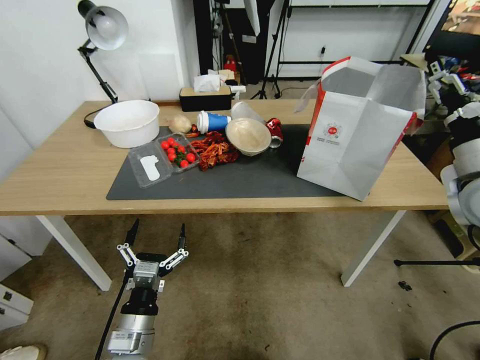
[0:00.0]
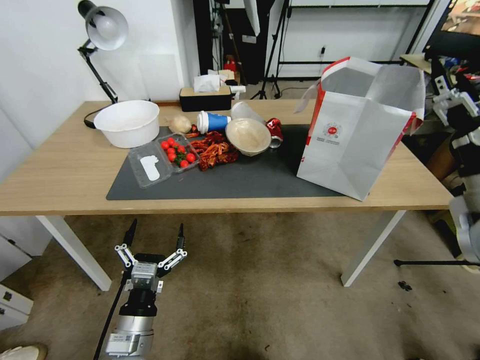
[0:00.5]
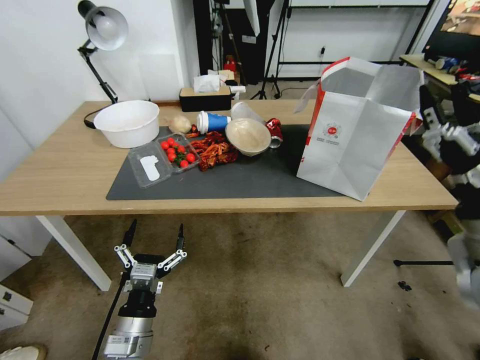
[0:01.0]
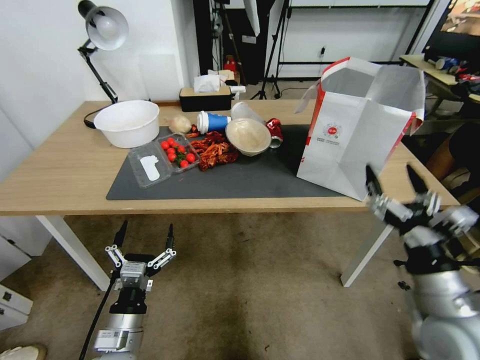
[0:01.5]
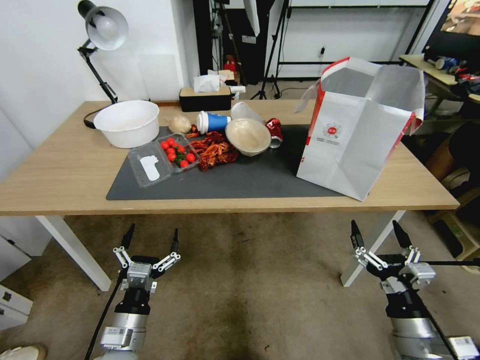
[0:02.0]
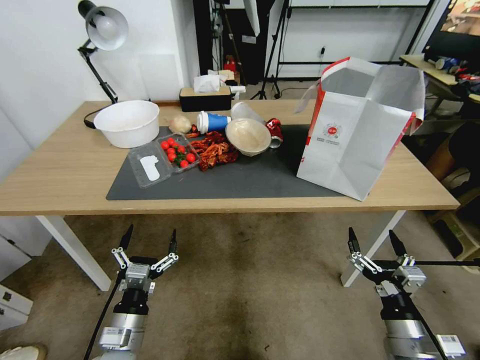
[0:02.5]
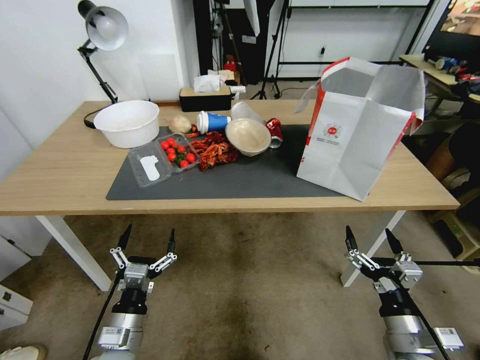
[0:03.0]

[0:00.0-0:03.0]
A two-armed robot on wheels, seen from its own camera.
Task of the whole recording: Pick up the food delivery bag from the floor and place it on the table.
0:00.0 to 0:01.5: The right gripper is displaced backward, downward and to the left by some 20 cm.
0:01.5 to 0:03.0: The right gripper heads downward, covering about 15 cm.

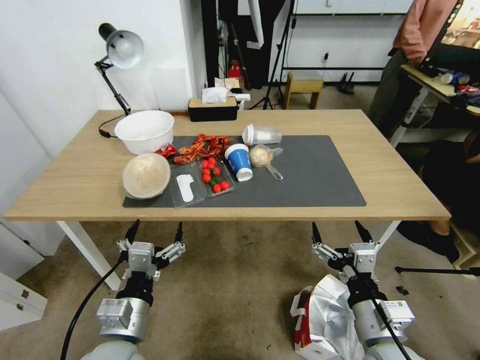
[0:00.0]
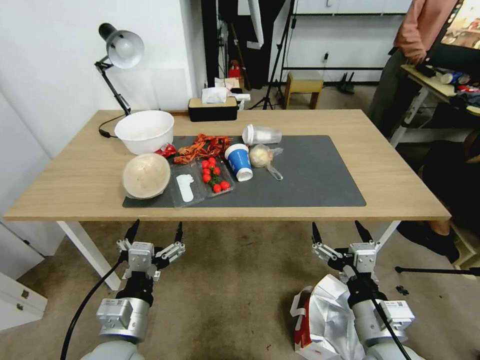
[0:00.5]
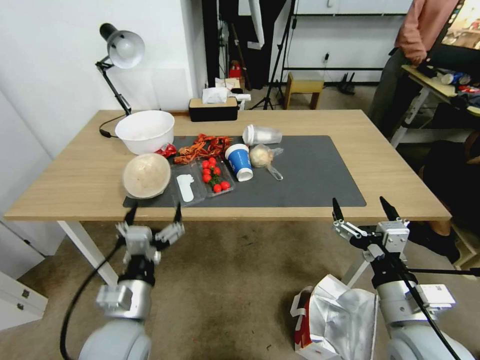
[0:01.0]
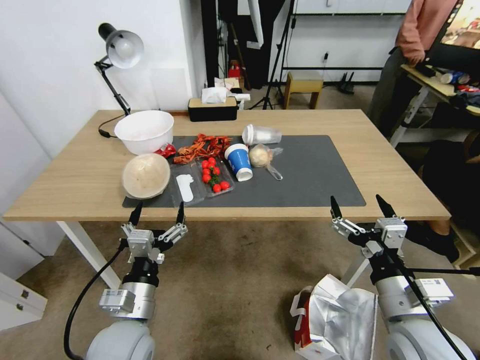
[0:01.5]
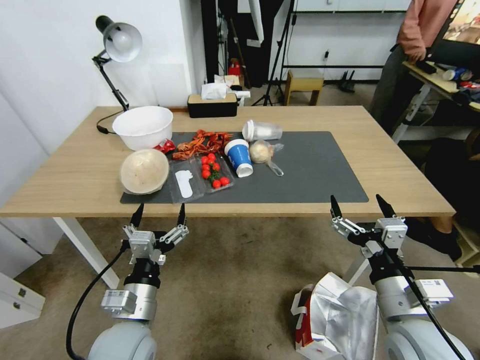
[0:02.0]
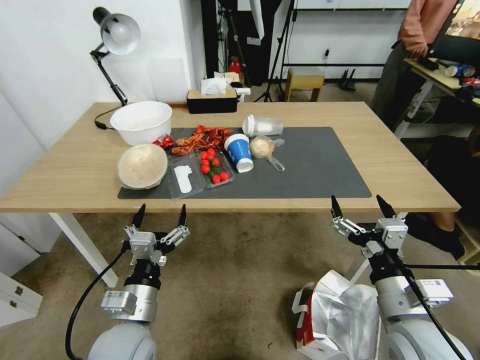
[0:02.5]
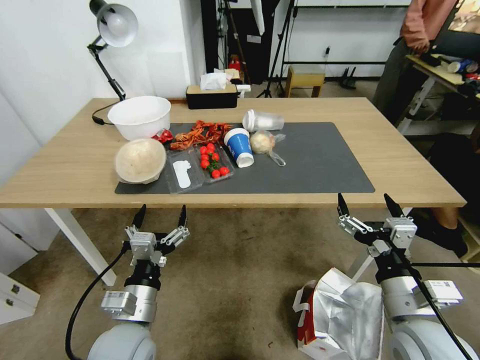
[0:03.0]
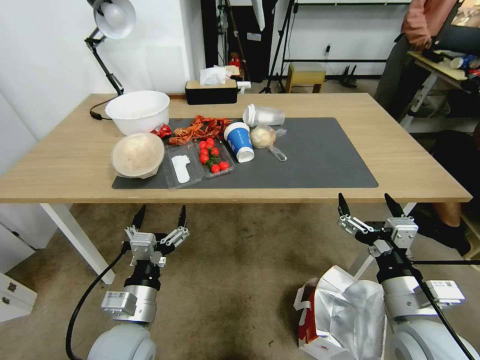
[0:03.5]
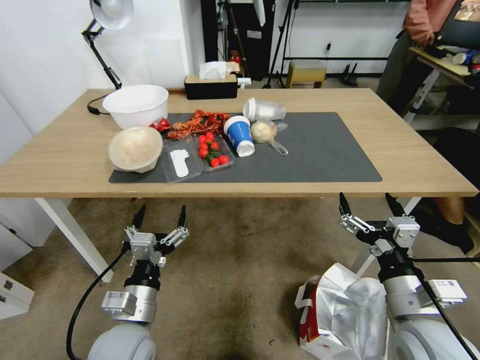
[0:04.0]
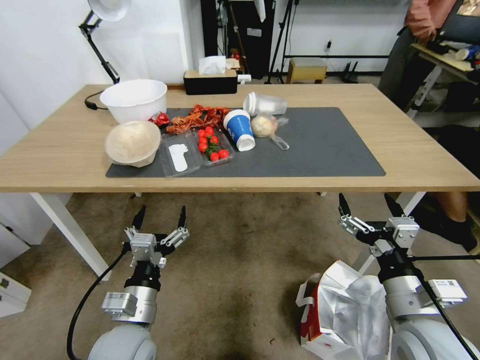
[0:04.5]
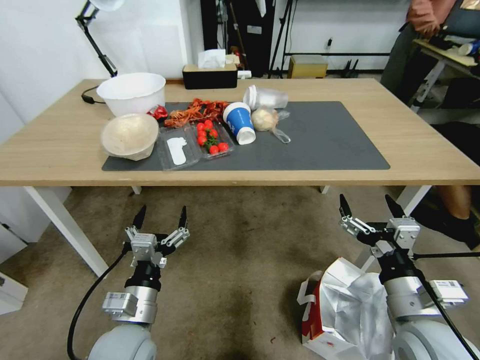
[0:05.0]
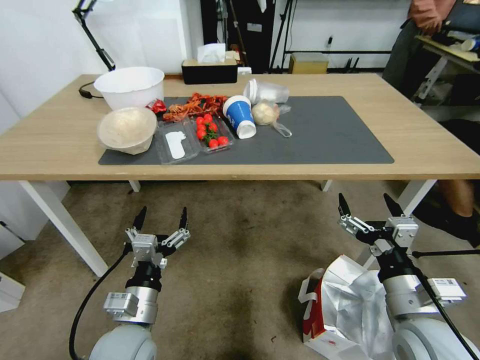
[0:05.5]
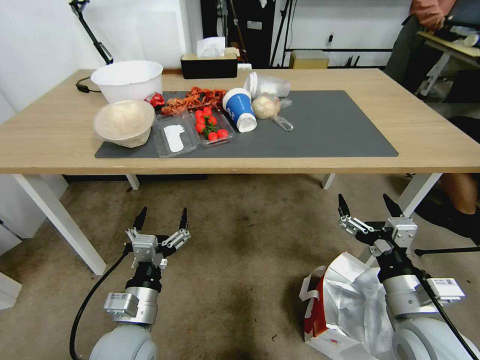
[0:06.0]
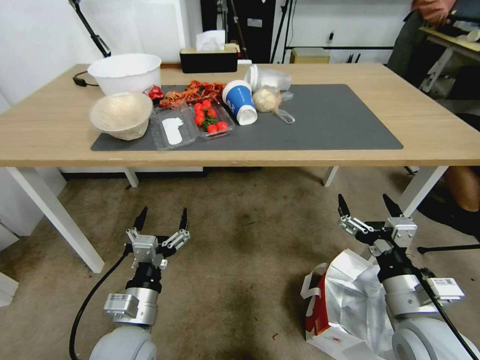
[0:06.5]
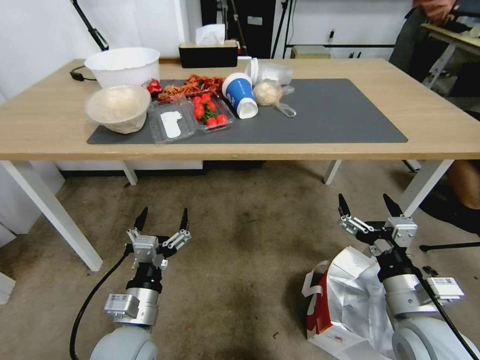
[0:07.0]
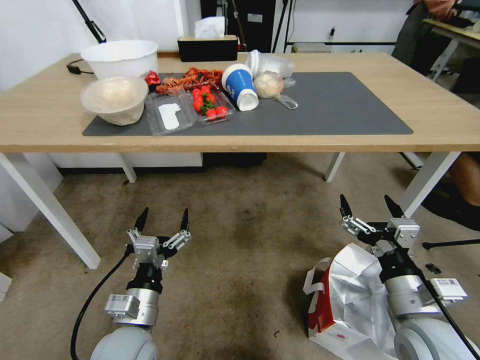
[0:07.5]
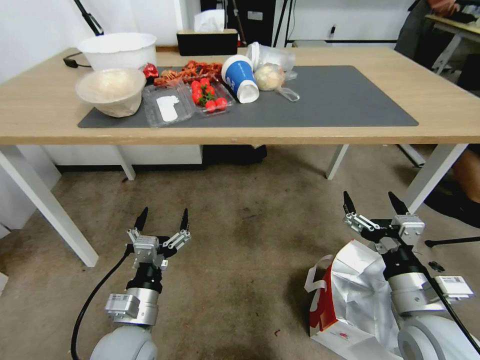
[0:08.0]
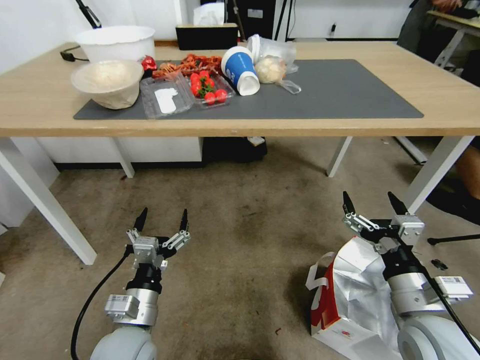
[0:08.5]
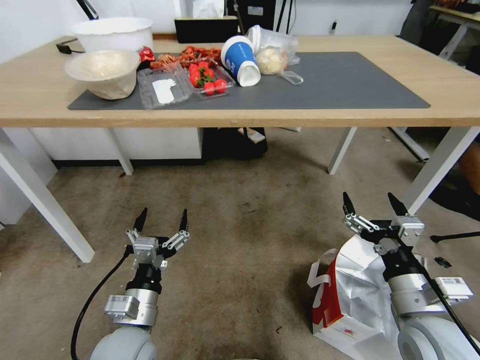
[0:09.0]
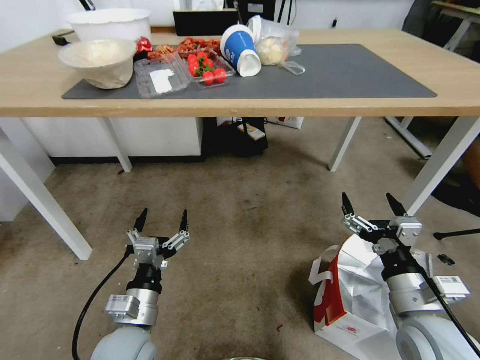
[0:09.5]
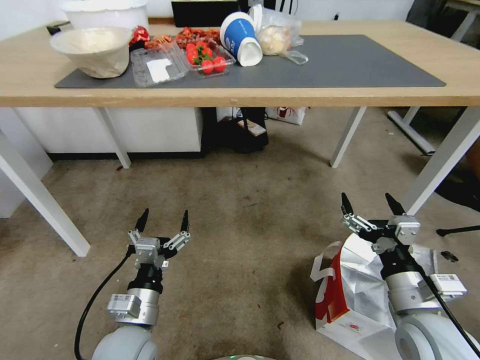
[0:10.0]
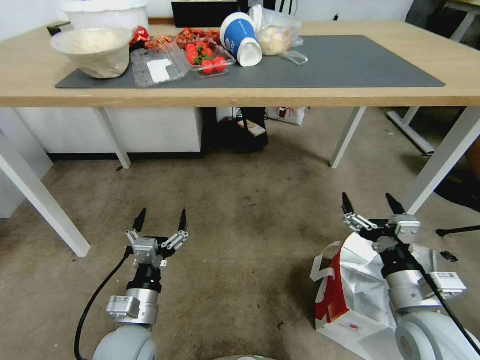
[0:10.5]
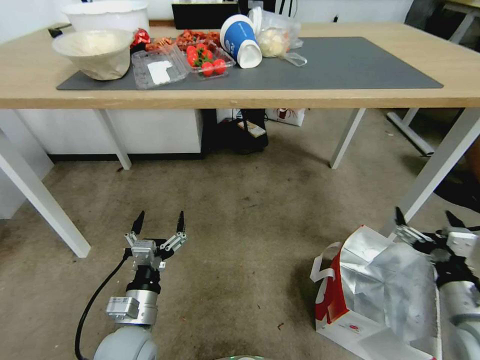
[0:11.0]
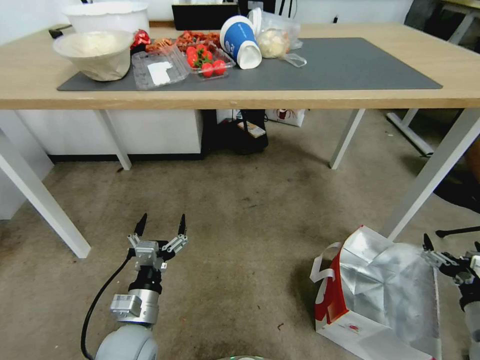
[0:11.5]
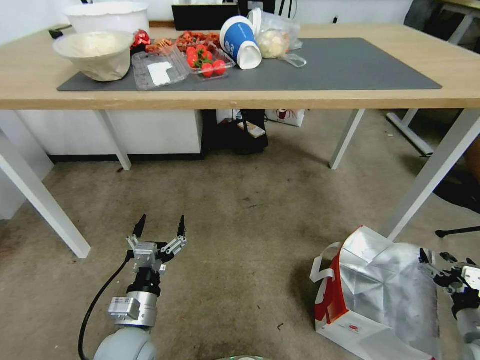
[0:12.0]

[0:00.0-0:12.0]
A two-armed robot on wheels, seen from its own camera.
Task of the whole recording: Pick up the food delivery bag from the floor and place it on the table.
0:10.0 to 0:12.0: The right gripper is displaced to the right and downward by approximately 20 cm.

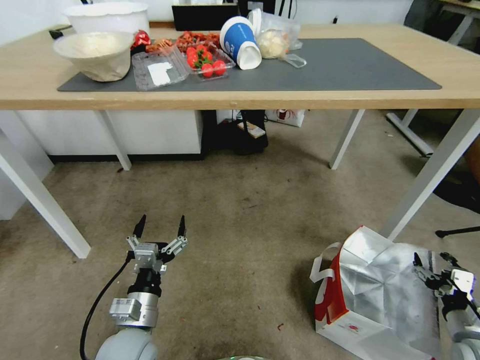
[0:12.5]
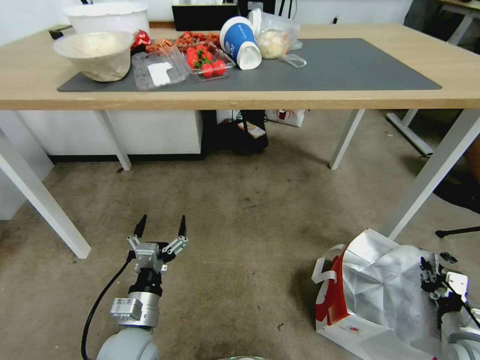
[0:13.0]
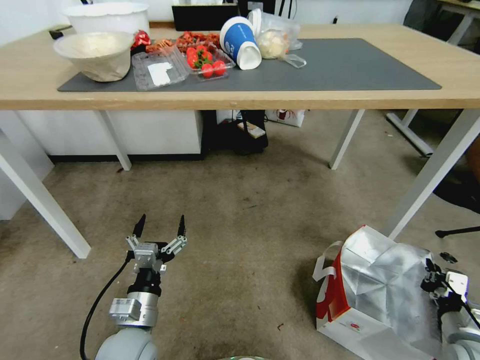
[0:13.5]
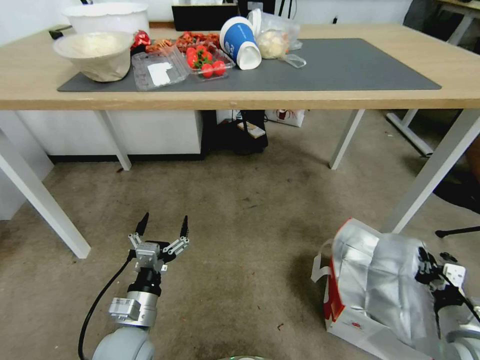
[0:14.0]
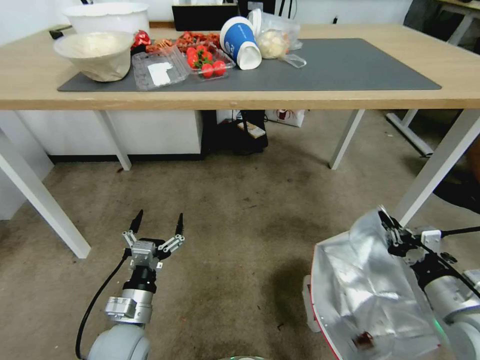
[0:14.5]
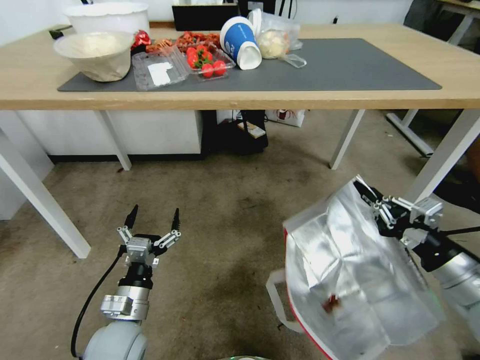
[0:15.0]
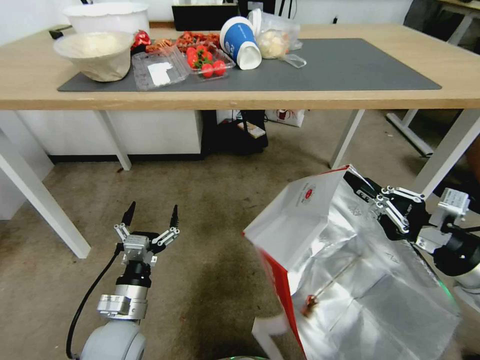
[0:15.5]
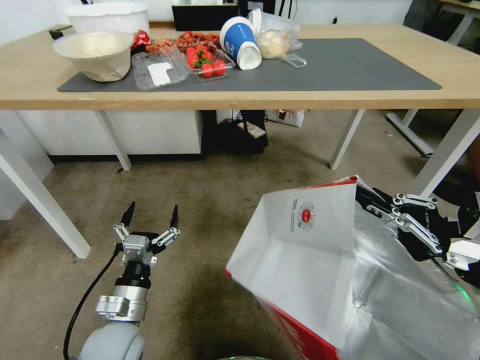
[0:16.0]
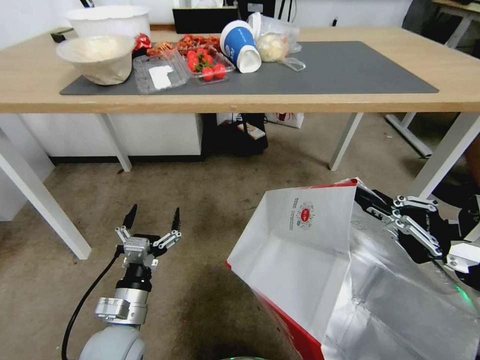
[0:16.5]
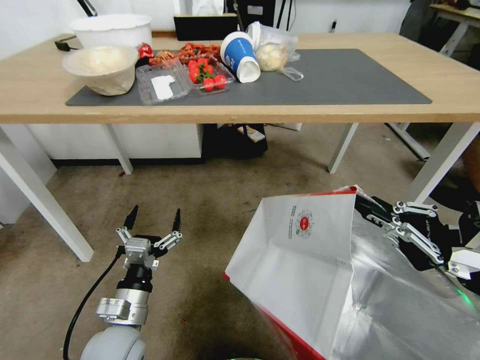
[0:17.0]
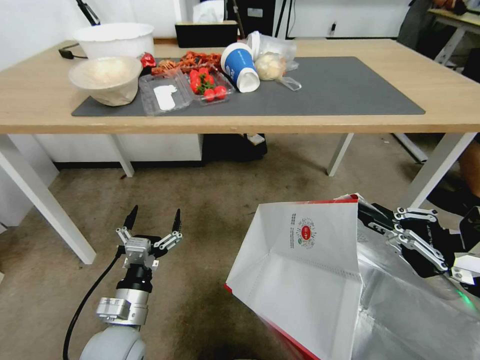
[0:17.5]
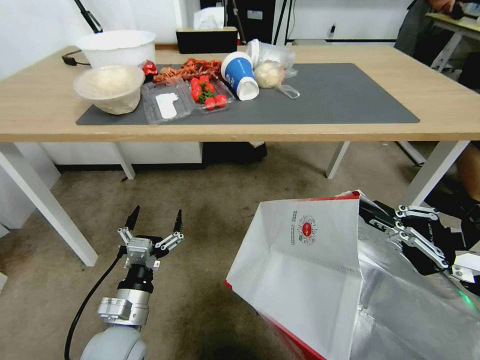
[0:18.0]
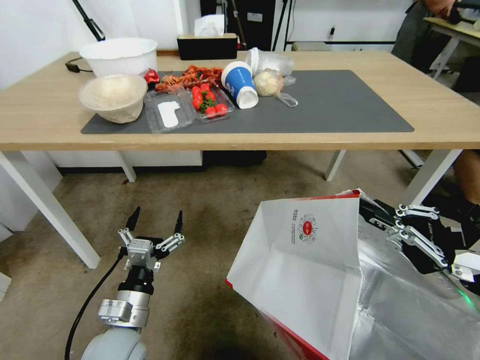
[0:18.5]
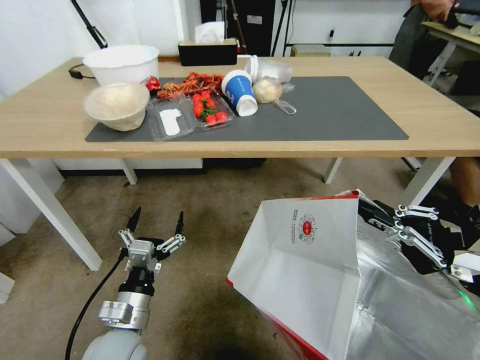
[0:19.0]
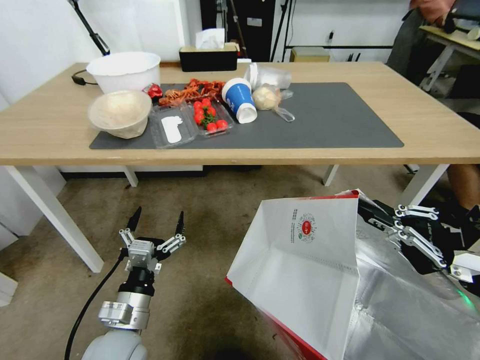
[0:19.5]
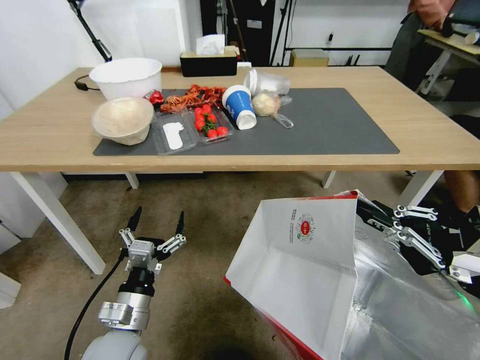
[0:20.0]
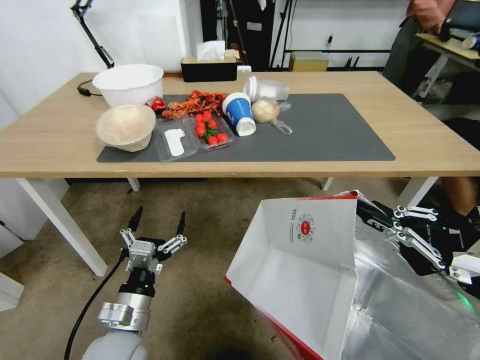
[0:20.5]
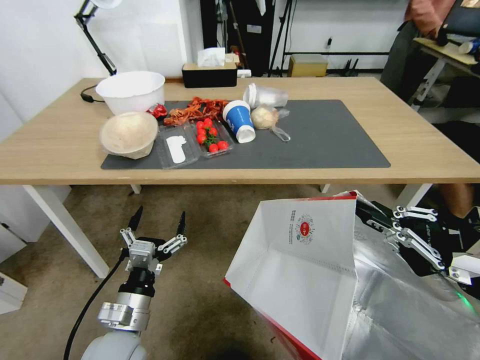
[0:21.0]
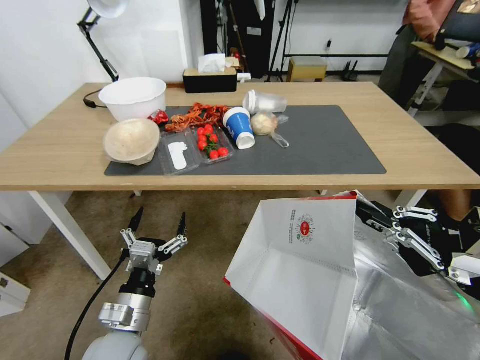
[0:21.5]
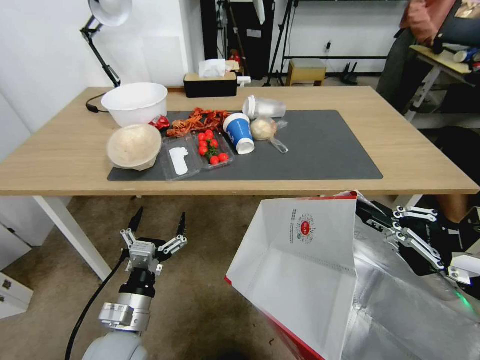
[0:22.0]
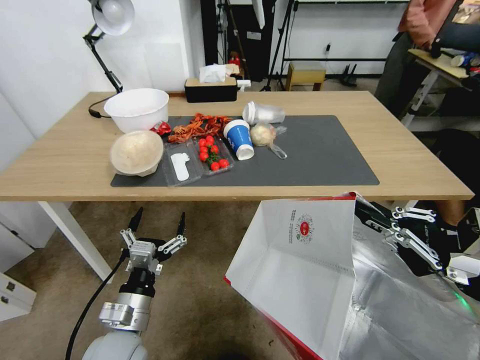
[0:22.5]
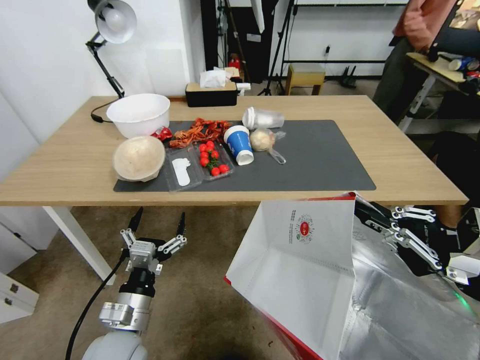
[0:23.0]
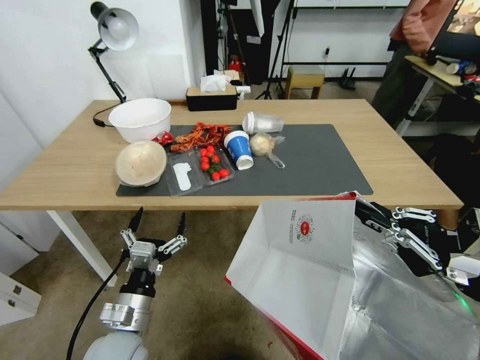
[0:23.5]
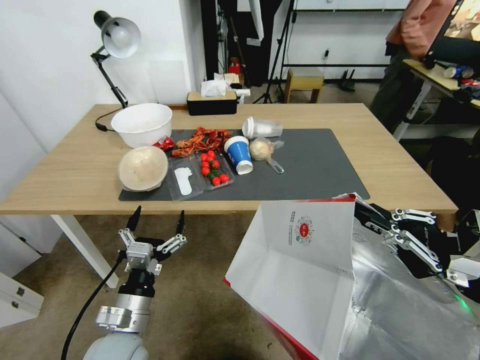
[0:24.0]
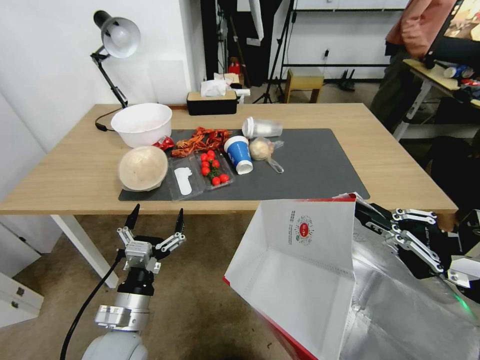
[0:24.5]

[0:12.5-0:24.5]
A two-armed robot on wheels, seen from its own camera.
Task of the whole recording: Pick up the food delivery bag from the floor and place it on the table.
0:12.5 to 0:14.5: The right gripper heads upward and to the left, covering roughly 15 cm, and closes up.
0:14.5 to 0:16.5: The right gripper shifts about 15 cm upward.
